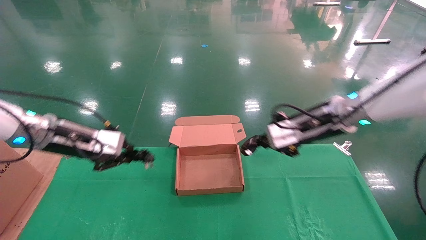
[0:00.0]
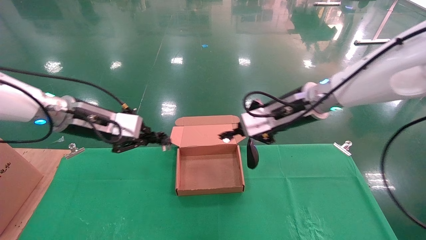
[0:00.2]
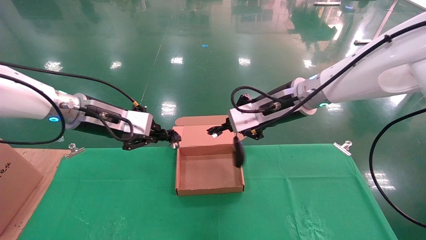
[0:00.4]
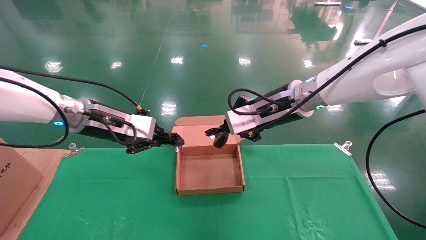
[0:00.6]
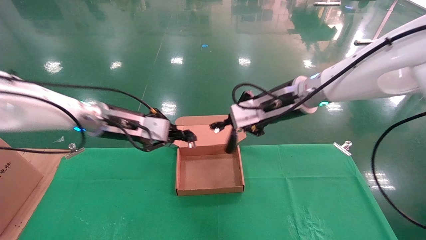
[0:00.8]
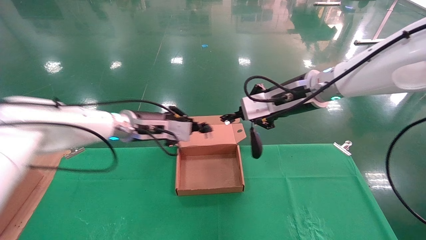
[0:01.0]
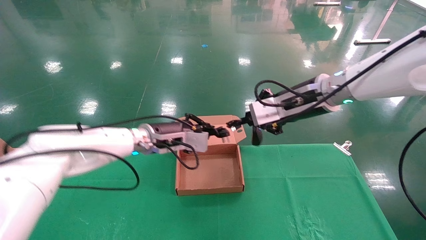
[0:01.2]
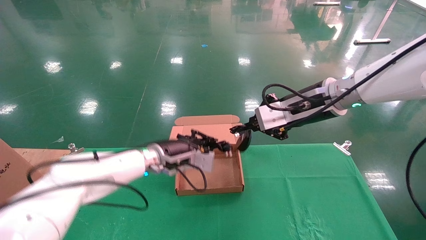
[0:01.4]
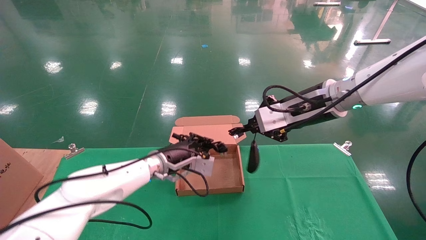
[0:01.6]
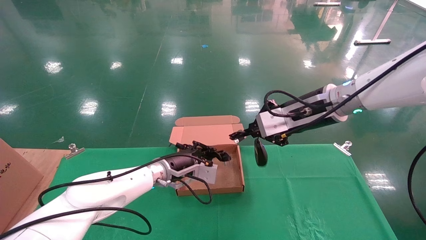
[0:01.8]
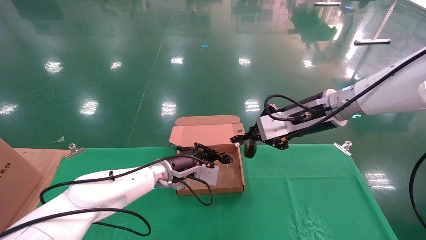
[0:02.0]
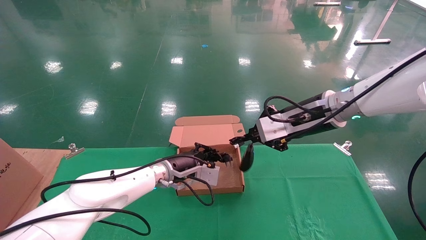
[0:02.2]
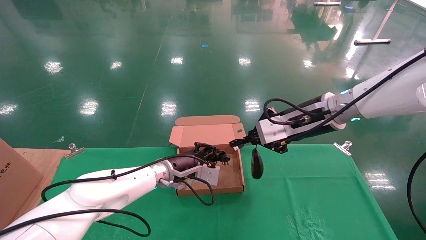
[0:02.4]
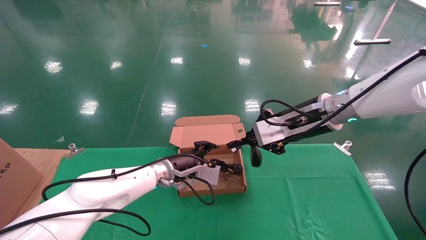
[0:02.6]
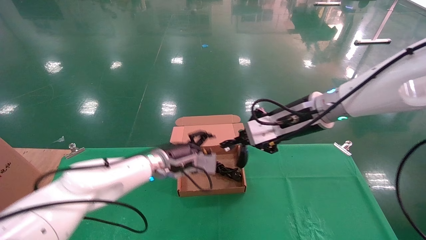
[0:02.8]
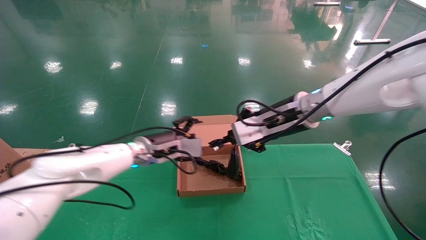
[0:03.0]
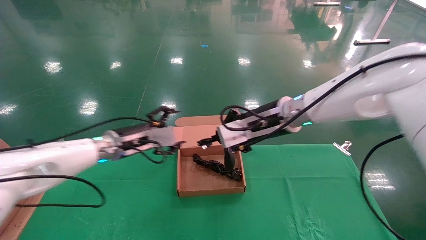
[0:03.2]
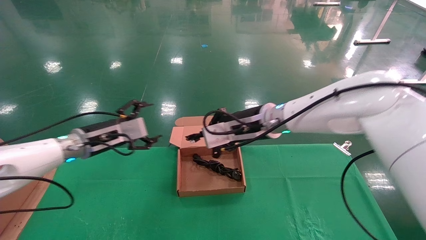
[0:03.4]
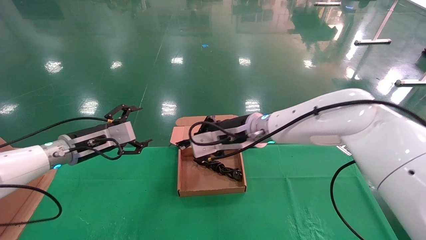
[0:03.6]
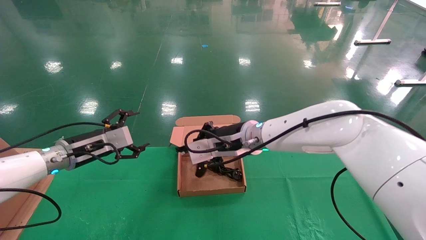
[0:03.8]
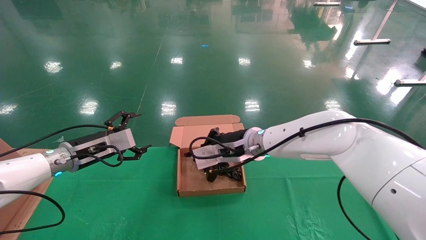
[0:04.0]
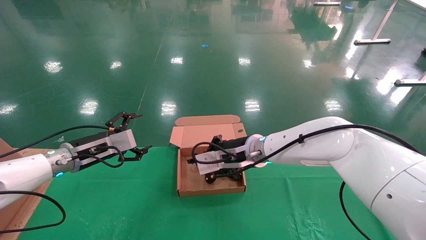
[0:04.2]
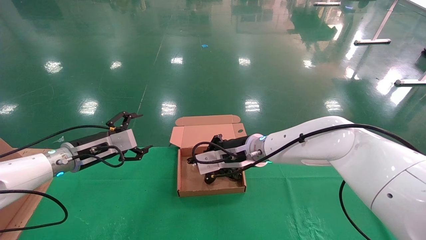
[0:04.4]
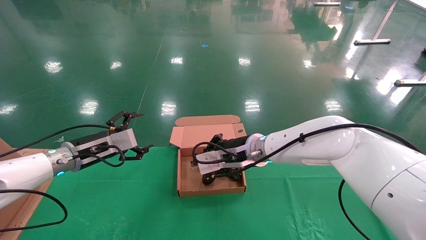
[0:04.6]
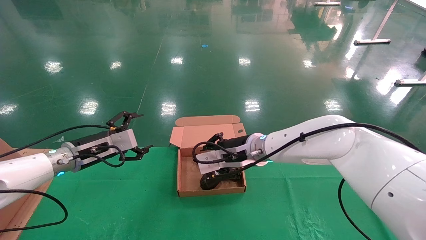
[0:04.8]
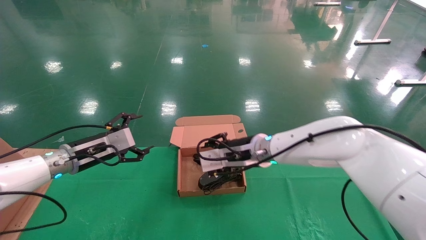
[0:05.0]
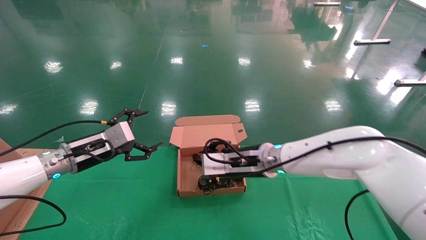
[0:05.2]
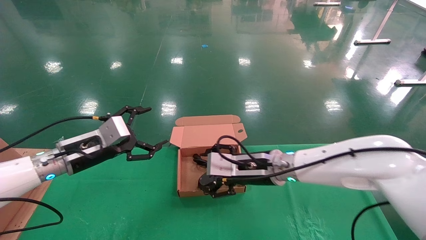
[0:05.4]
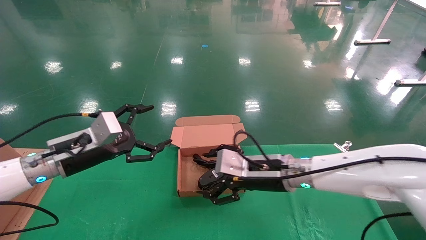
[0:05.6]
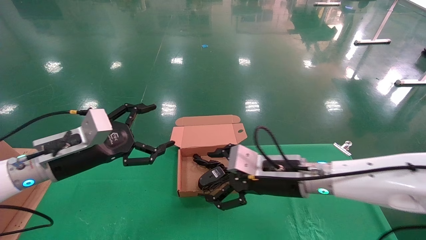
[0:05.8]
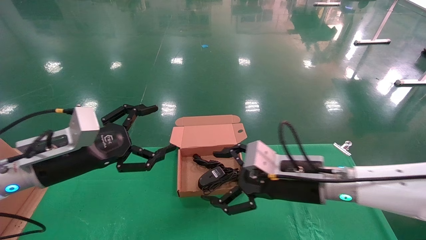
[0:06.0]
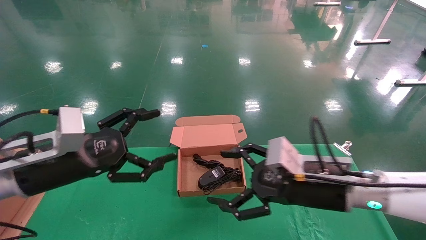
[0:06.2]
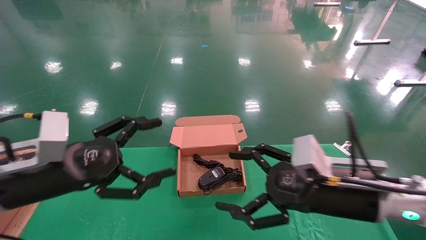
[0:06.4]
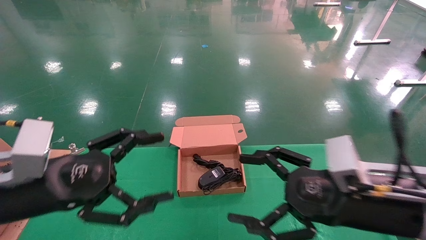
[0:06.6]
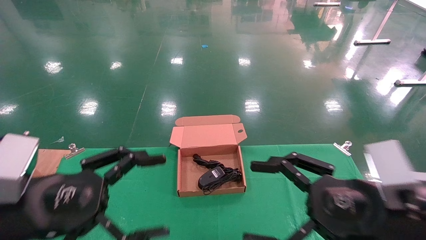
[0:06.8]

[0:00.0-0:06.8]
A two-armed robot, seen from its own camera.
Step, 0:00.0 to 0:05.2: Place the mouse and power cord into the box.
0:00.0 to 0:01.4: The left gripper moves to the right, downward and forward, roughly 20 cm.
0:01.4 to 0:02.8: The left gripper opens its fingers.
0:02.8 to 0:04.0: The right gripper travels to the left and downward by some 15 cm. Meanwhile the left gripper shifts roughly 20 cm to the left, and opens its fingers.
0:04.0 to 0:05.4: The left gripper shifts by about 5 cm. Meanwhile the right gripper shifts by about 5 cm, and opens up.
0:05.4 to 0:06.8: The right gripper heads backward and to the right, covering approximately 25 cm, while the left gripper goes roughly 20 cm backward.

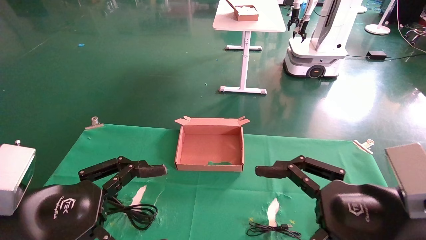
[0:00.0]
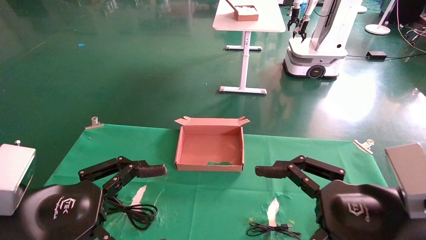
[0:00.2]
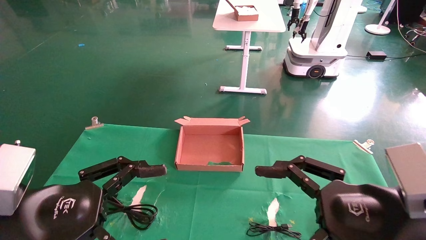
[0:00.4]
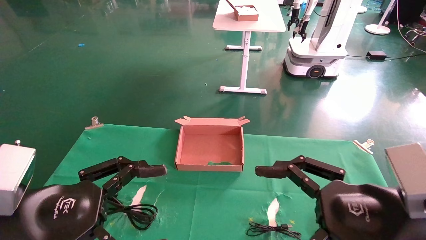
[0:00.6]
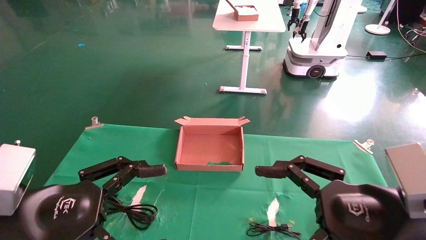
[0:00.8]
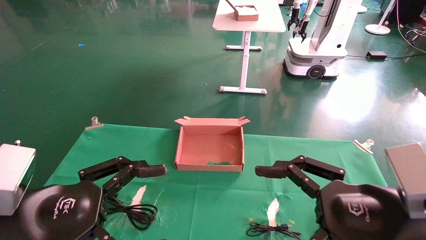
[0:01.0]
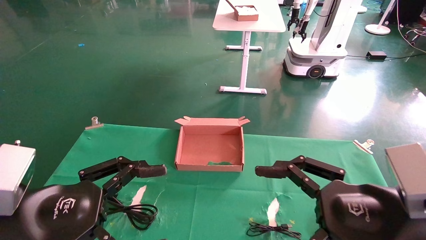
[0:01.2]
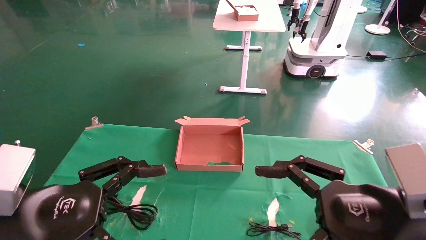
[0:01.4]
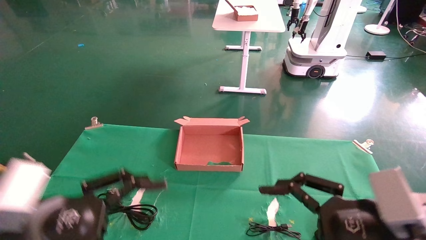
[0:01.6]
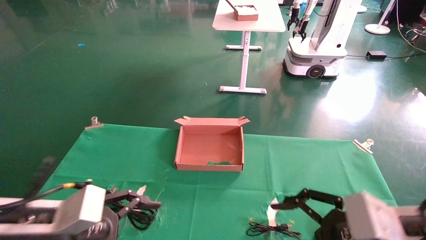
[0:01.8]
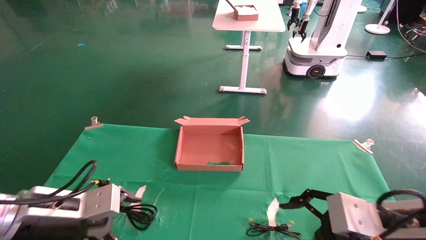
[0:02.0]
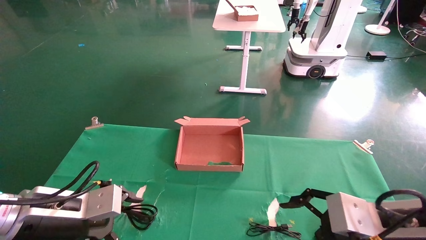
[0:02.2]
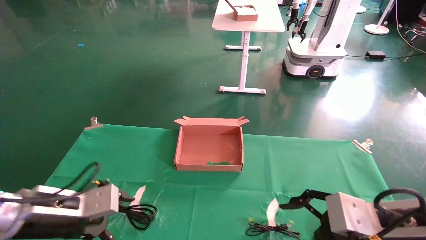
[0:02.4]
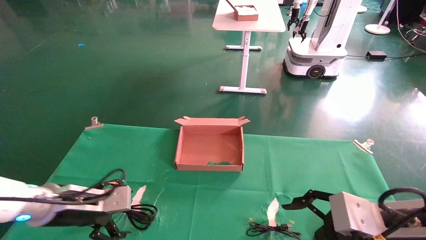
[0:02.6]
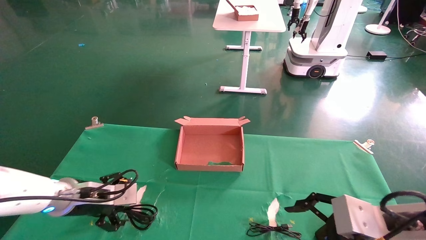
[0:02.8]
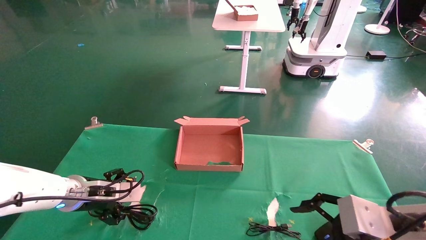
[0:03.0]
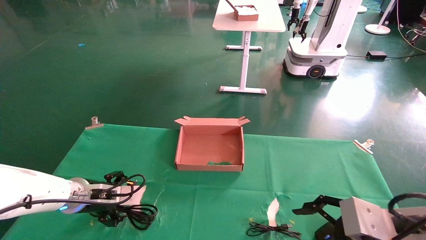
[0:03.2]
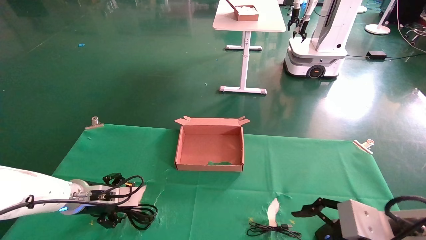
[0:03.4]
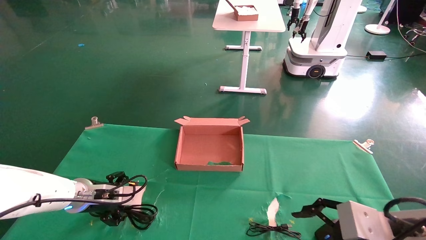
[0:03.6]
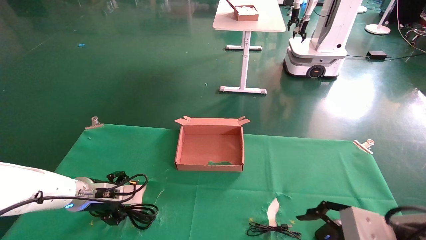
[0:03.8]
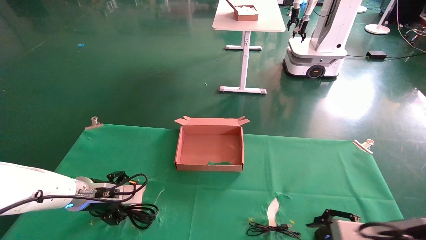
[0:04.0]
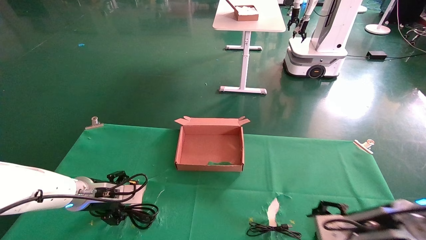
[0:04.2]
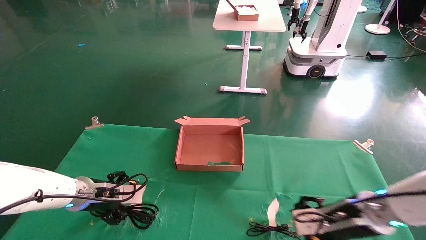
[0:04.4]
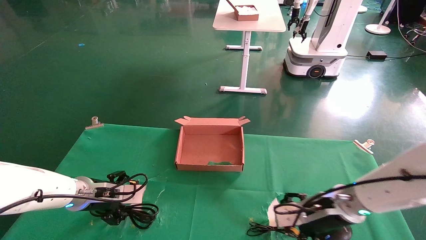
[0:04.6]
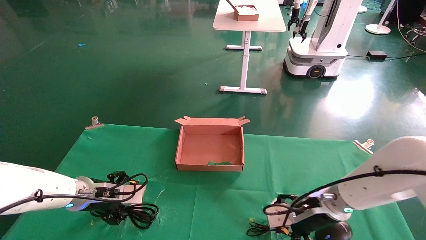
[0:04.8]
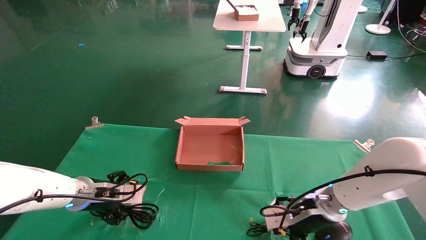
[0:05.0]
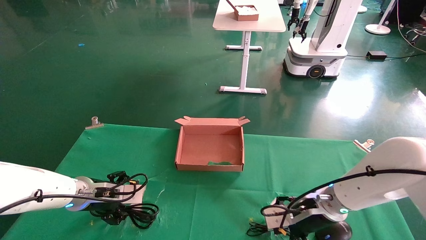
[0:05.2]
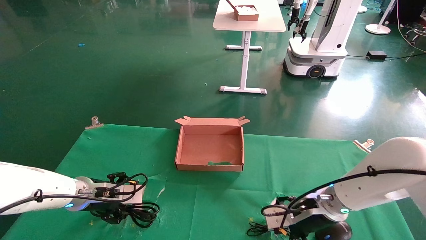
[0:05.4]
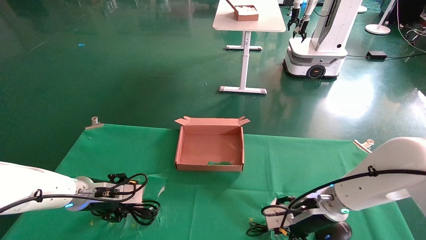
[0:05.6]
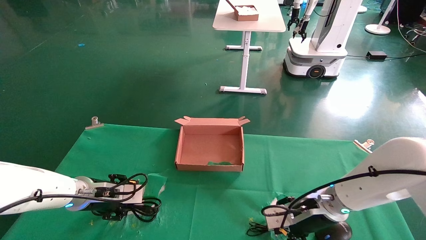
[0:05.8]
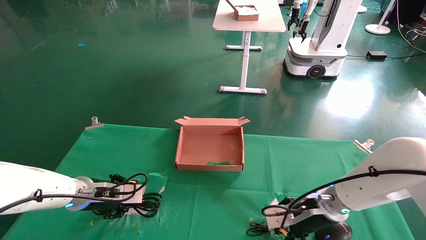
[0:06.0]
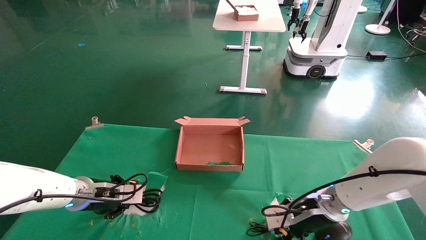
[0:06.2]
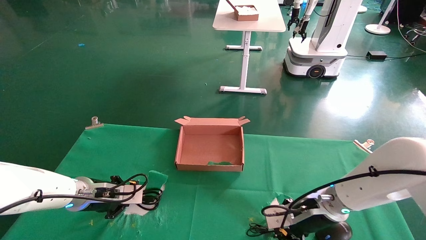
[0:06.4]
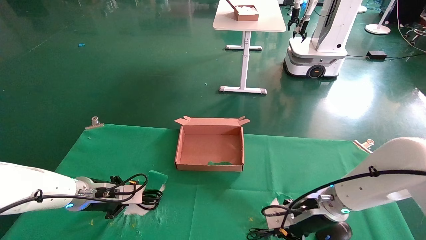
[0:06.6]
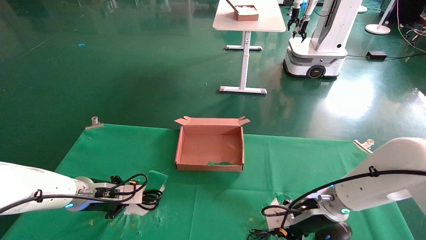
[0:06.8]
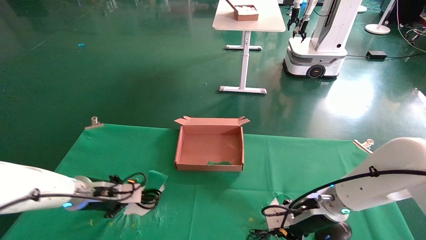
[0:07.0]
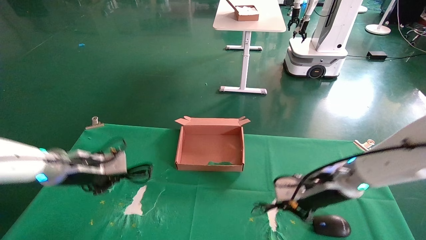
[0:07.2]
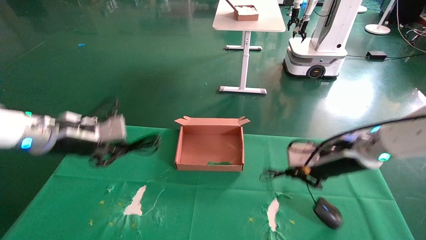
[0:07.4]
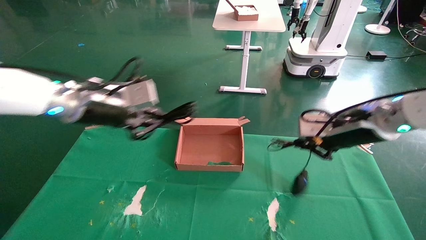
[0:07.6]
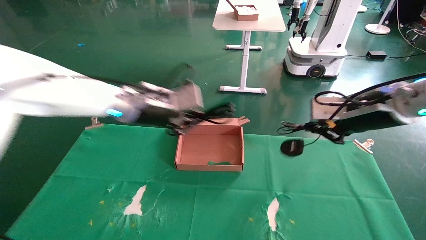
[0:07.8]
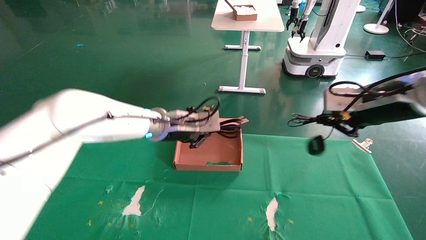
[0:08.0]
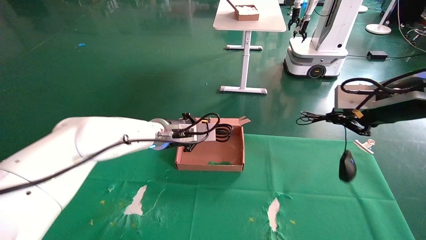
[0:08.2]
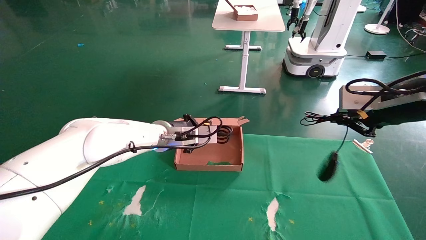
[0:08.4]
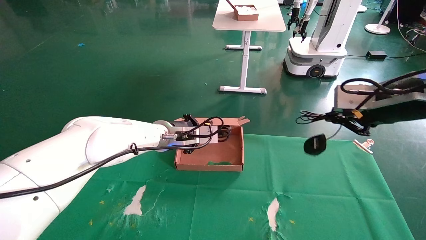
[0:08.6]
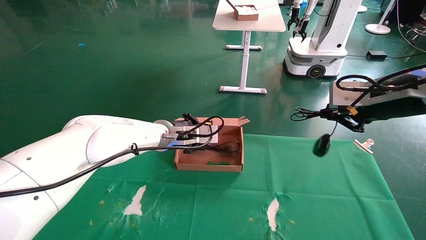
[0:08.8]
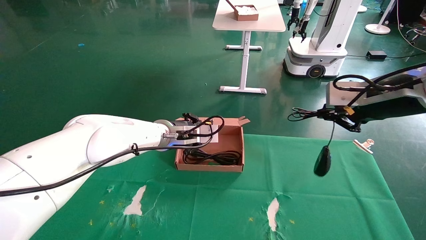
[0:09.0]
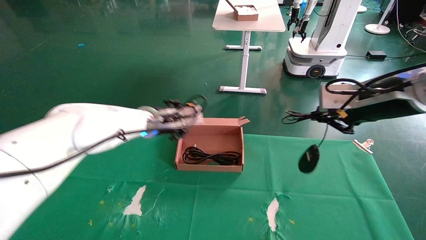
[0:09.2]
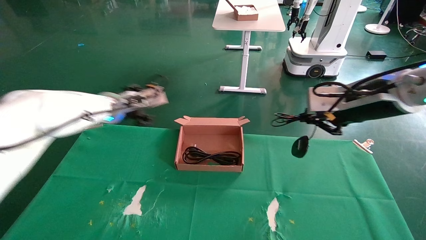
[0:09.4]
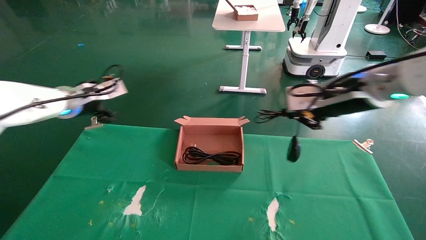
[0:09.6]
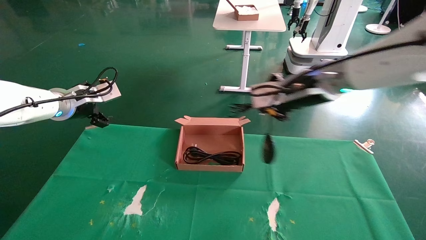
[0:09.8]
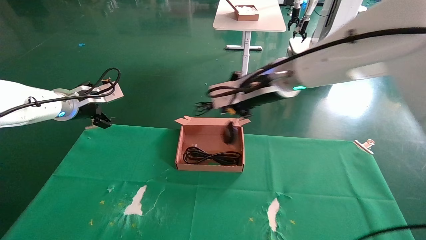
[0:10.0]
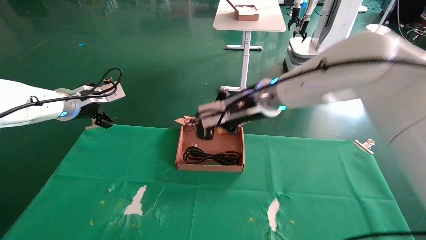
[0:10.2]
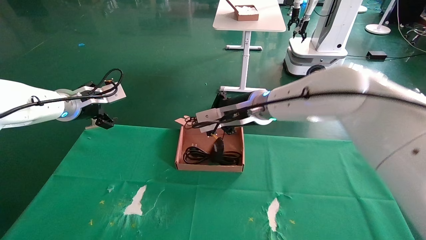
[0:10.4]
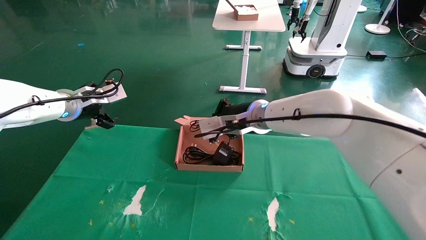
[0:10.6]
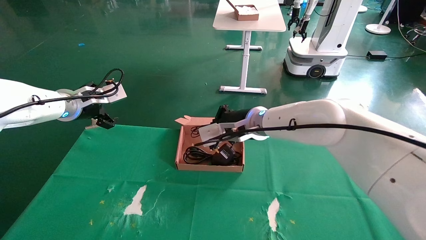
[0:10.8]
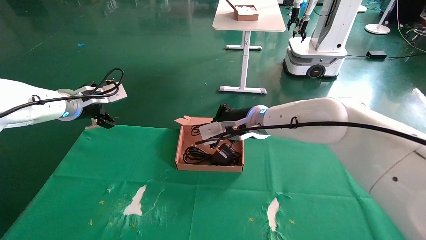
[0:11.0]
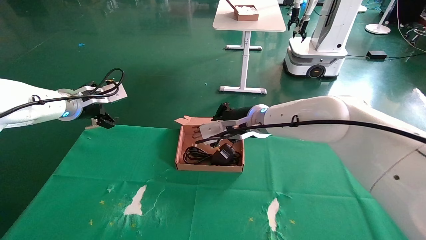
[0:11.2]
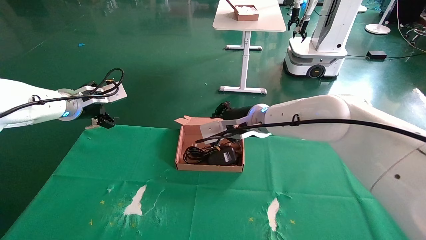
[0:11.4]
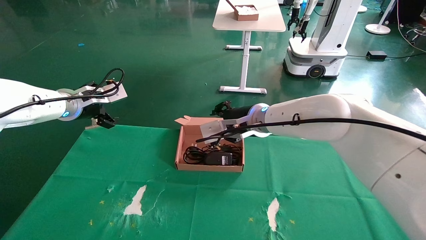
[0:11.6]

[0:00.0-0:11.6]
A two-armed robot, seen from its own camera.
Step, 0:01.4 to 0:07.2: Grab and lift both the mouse and power cord from the accessory packaging area at the same time.
0:00.0 to 0:01.4: Both grippers stay put.
0:01.4 to 0:02.8: The right gripper moves approximately 5 cm. Meanwhile the left gripper shifts roughly 20 cm forward and downward.
0:02.8 to 0:04.4: The right gripper moves forward and downward, some 10 cm.
0:04.4 to 0:05.8: The right gripper is displaced forward by some 5 cm.
0:05.8 to 0:07.2: Both grippers move upward, about 10 cm. The left gripper closes, while the right gripper closes its fingers.
0:07.2 to 0:08.8: The left gripper heads to the right and forward, covering approximately 20 cm. Meanwhile the right gripper moves upward and to the right, approximately 20 cm.
0:08.8 to 0:10.2: The right gripper moves to the left and forward, about 25 cm; the left gripper moves to the left, about 20 cm, and opens its fingers.
0:10.2 to 0:11.6: The right gripper goes roughly 5 cm downward.
